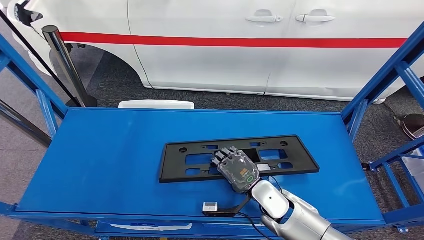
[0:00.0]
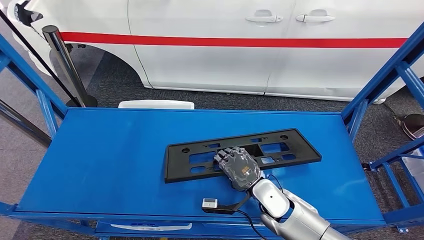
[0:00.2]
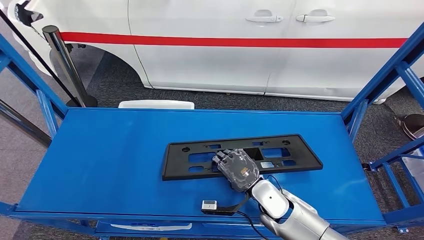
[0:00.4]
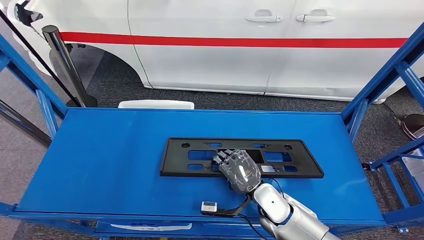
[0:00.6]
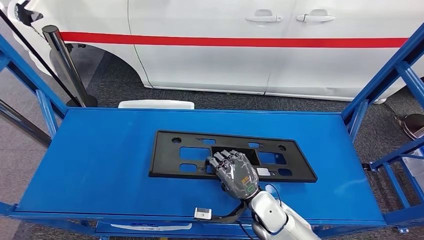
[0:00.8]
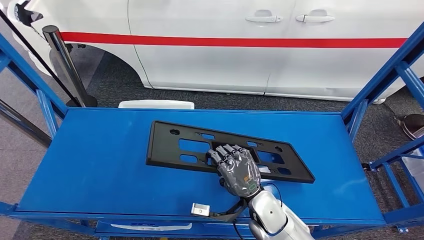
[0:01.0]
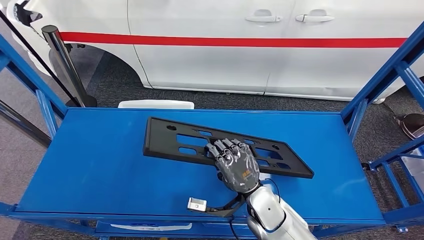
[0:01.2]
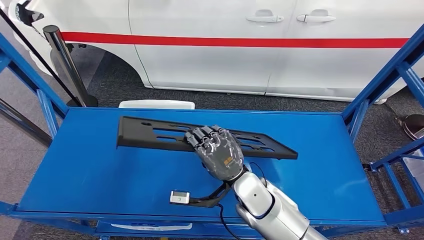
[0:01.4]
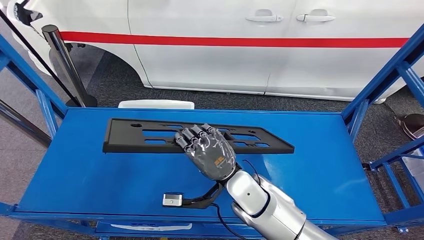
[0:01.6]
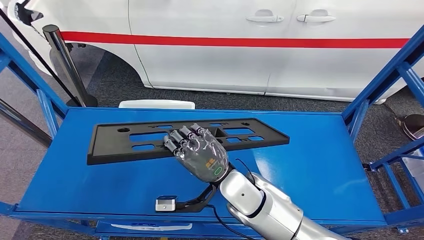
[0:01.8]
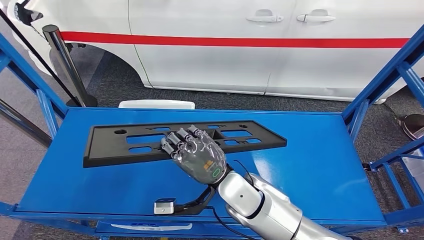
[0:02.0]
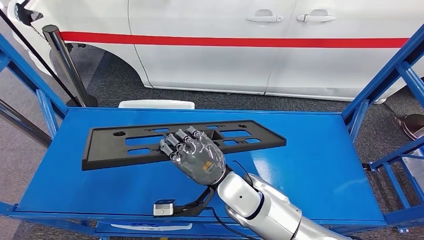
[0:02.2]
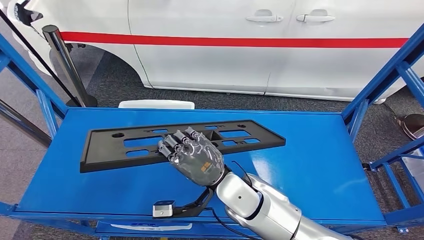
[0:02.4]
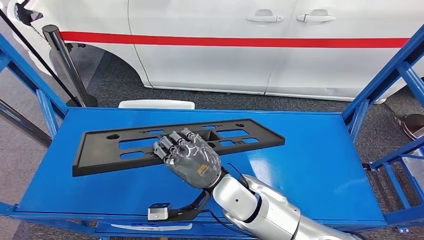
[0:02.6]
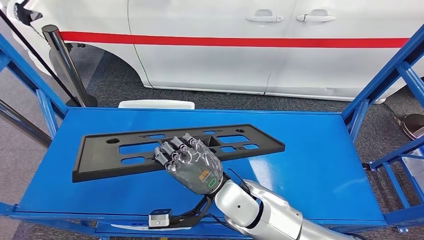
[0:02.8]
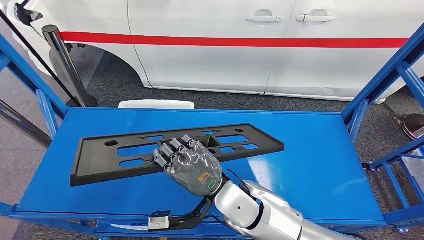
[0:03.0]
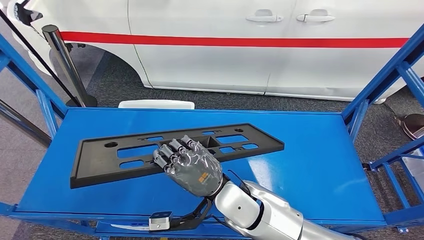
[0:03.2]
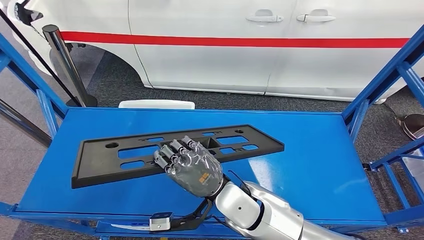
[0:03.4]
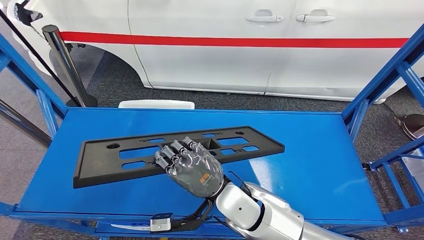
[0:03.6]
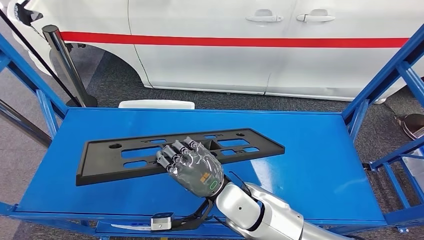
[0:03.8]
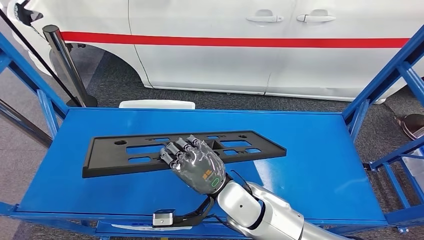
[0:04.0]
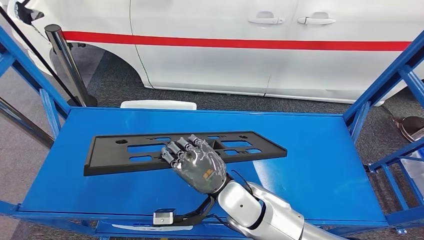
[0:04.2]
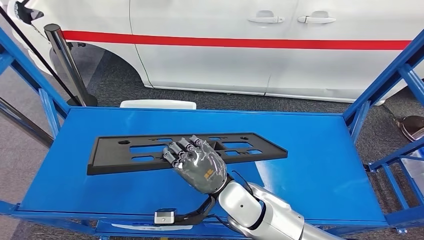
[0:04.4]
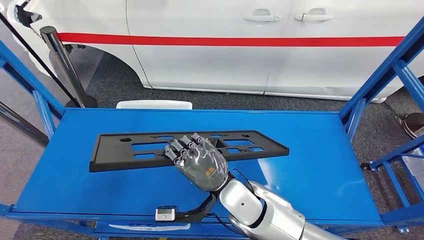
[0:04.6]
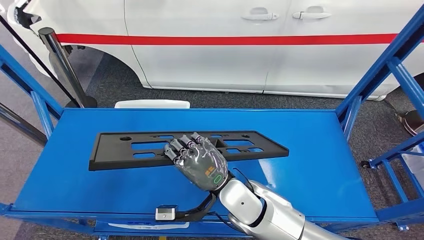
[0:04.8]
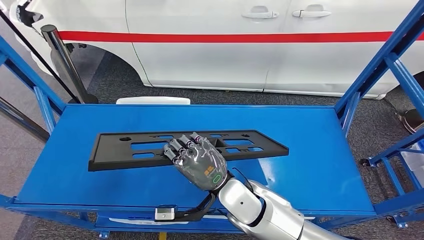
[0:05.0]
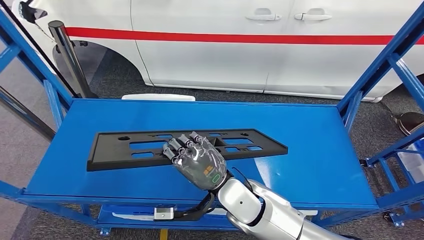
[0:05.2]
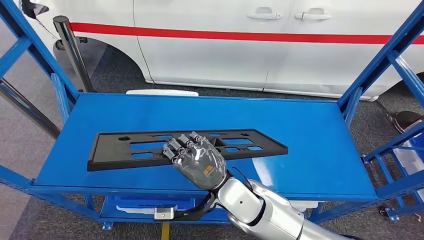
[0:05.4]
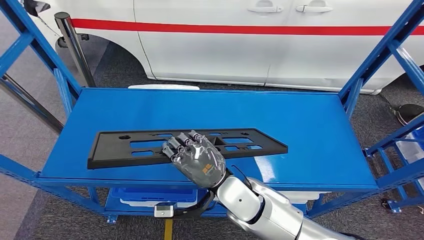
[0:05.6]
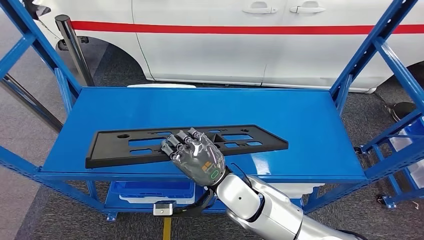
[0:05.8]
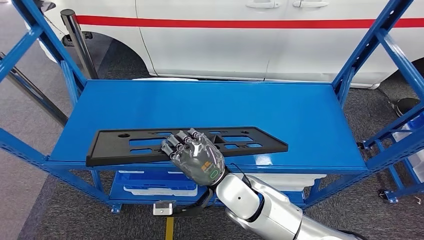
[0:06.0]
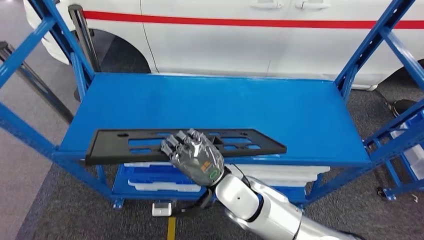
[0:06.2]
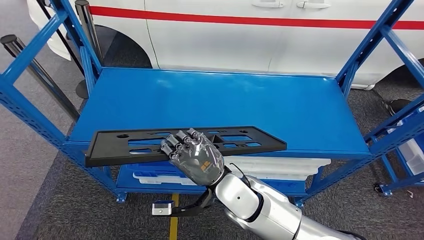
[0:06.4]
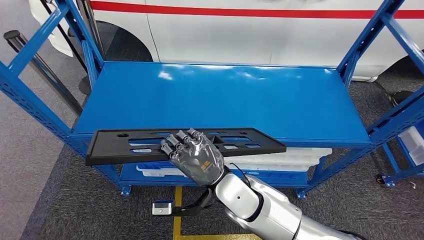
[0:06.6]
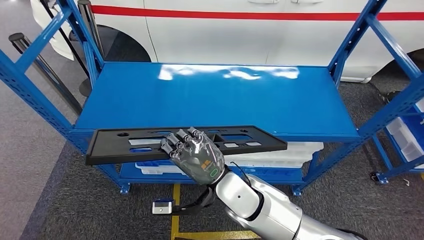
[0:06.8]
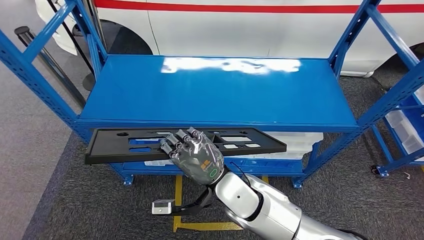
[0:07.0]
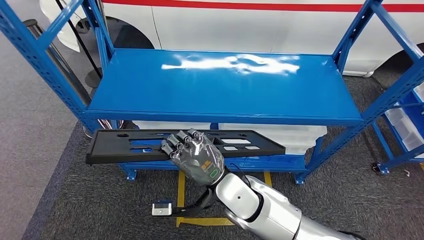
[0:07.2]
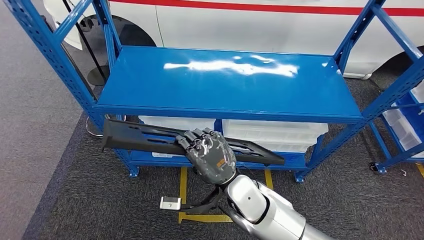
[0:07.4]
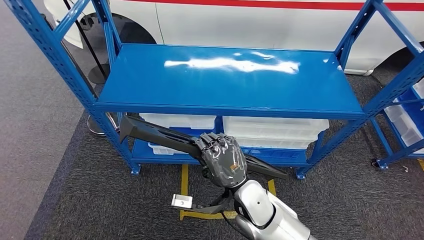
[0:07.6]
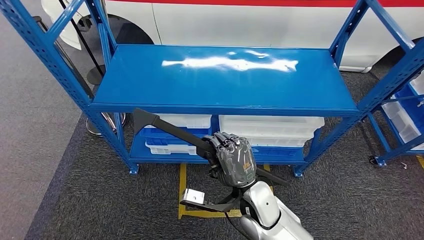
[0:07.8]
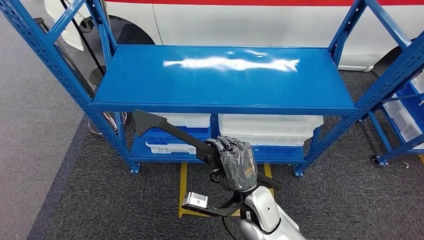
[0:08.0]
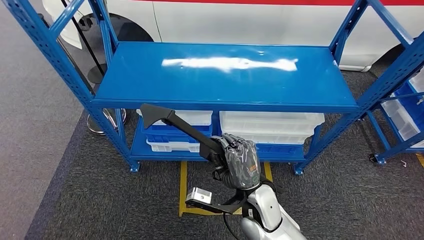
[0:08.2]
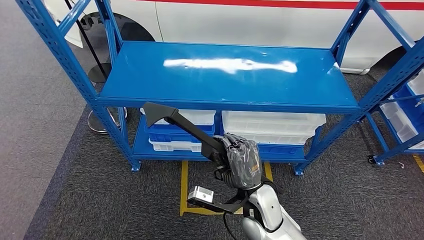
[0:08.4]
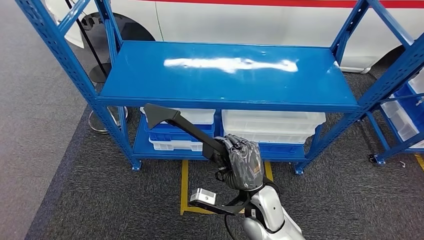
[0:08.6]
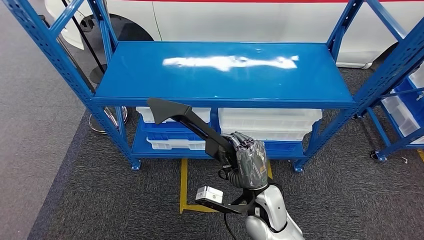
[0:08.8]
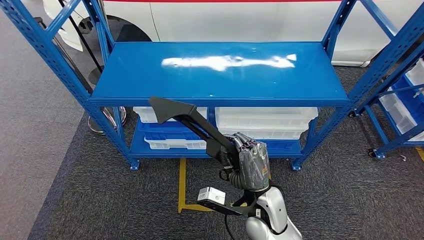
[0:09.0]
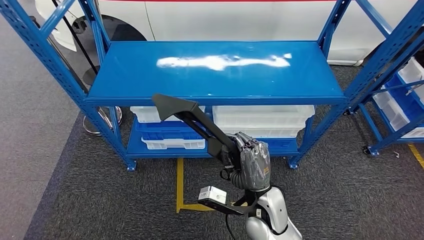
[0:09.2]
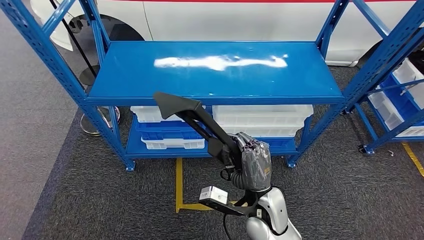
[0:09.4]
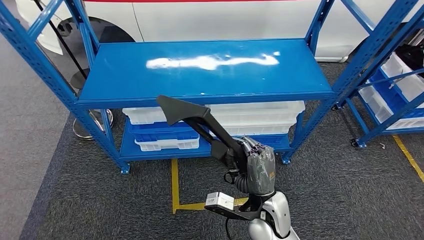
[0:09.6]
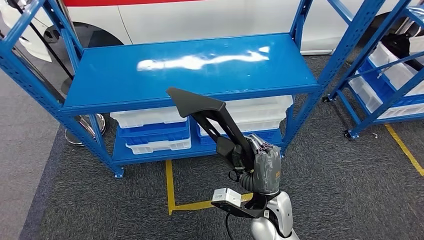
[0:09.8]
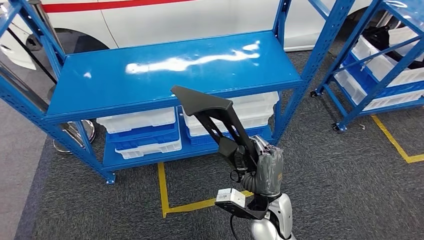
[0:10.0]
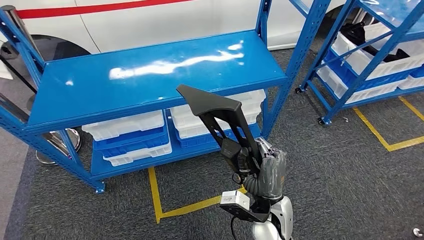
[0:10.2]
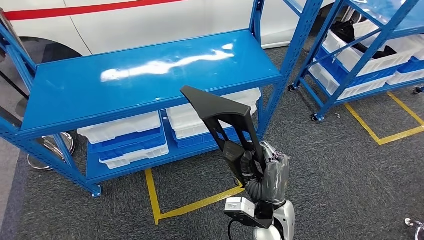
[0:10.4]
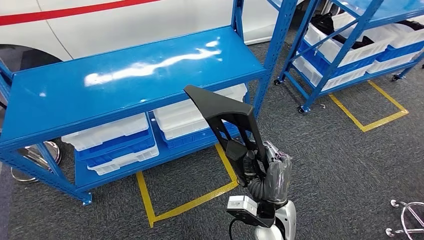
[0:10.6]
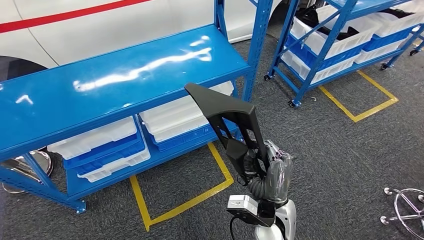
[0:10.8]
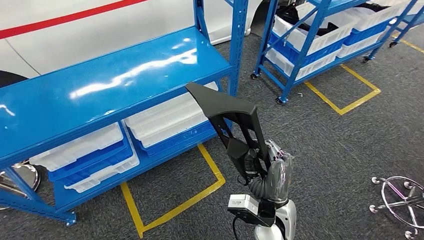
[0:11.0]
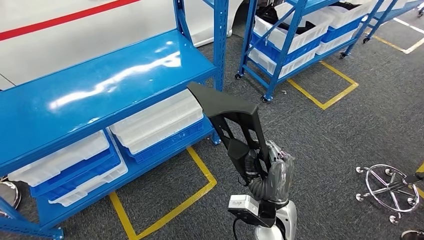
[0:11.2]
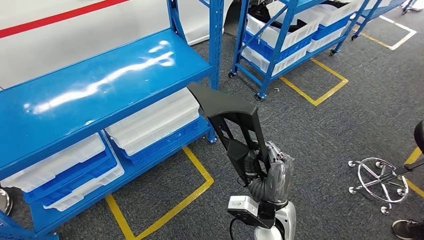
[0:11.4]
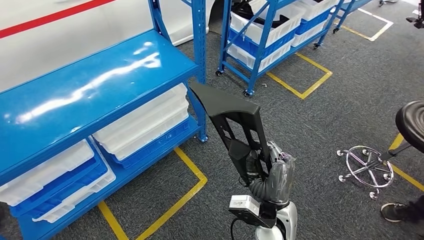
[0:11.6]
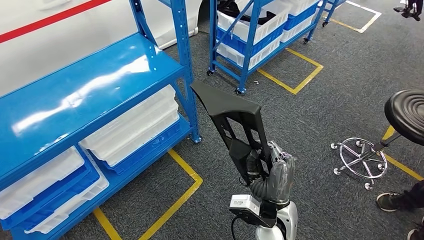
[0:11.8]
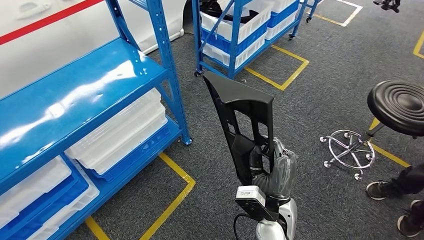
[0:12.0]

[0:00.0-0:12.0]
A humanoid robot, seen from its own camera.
Step, 0:00.0 to 0:02.2: Pick up the large material from the shelf.
0:00.0 to 0:01.6: The right hand moves upward and to the left, about 10 cm.
0:01.6 to 0:04.4: The hands stay close to where they were, moving slightly.

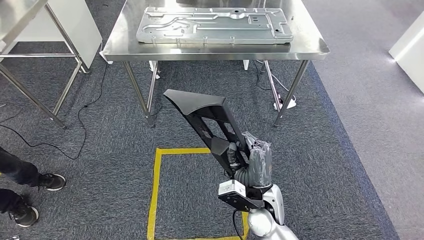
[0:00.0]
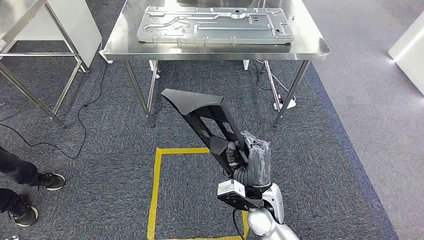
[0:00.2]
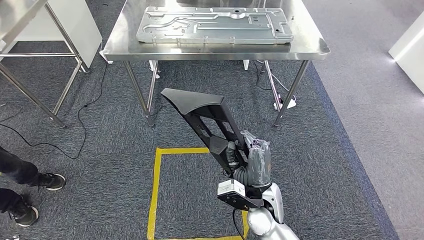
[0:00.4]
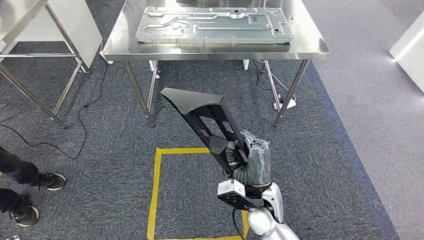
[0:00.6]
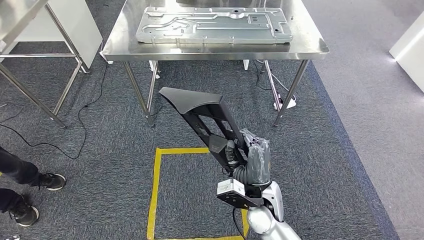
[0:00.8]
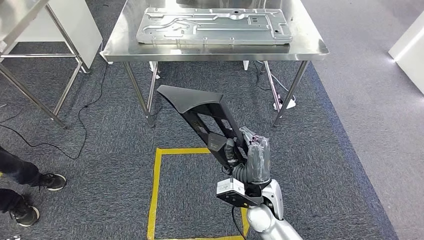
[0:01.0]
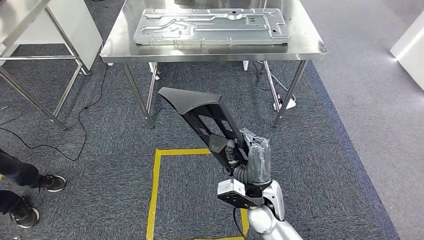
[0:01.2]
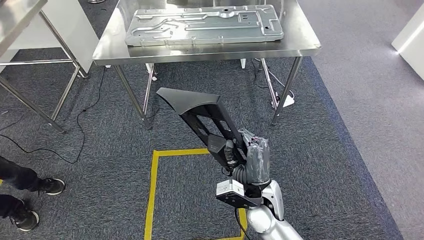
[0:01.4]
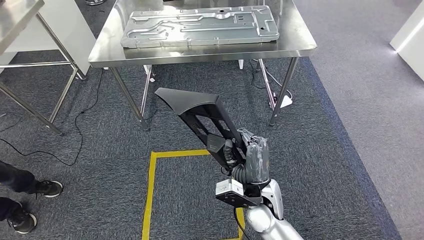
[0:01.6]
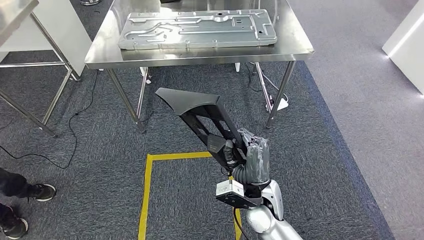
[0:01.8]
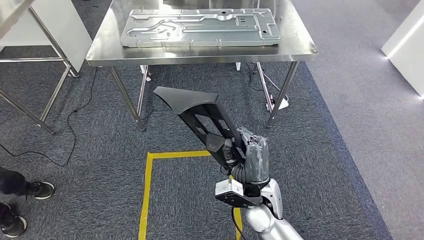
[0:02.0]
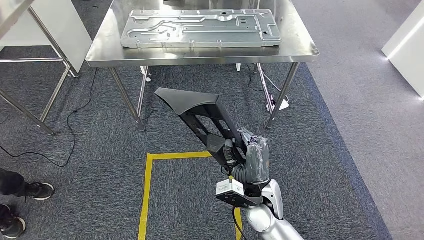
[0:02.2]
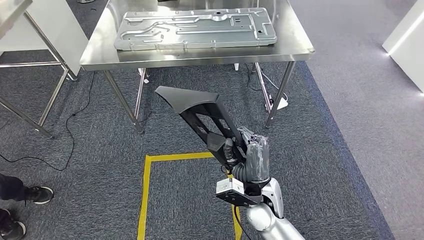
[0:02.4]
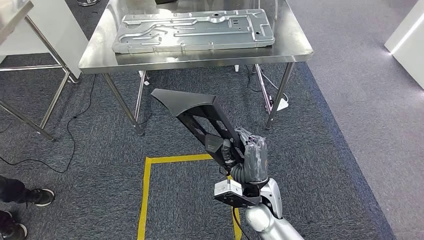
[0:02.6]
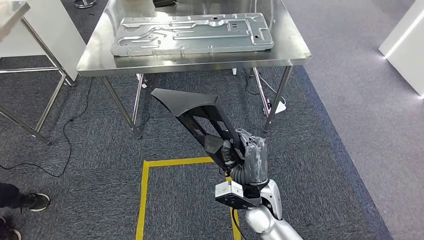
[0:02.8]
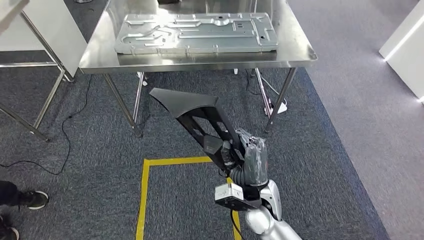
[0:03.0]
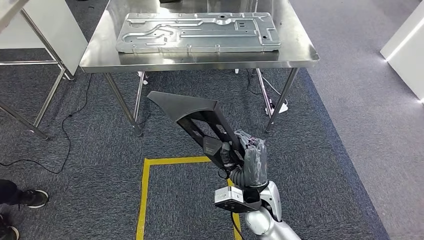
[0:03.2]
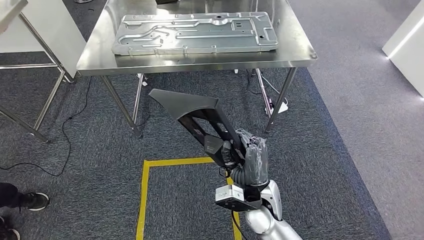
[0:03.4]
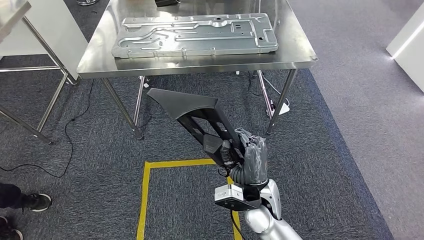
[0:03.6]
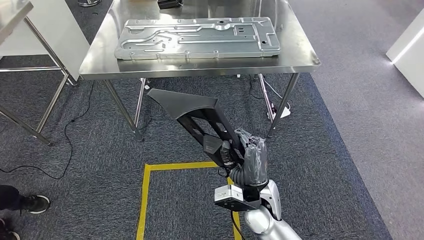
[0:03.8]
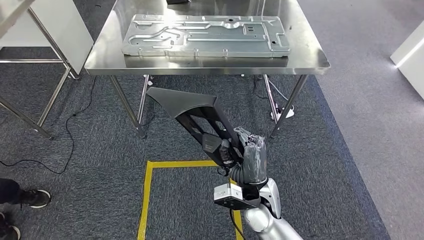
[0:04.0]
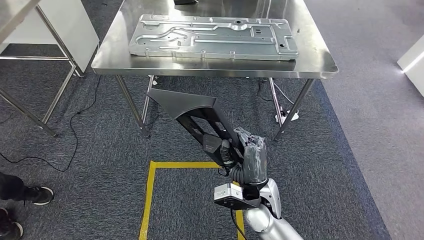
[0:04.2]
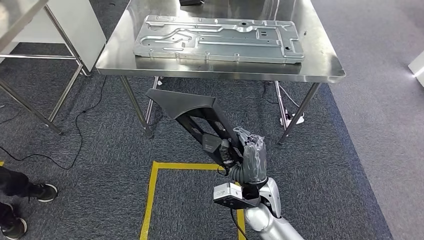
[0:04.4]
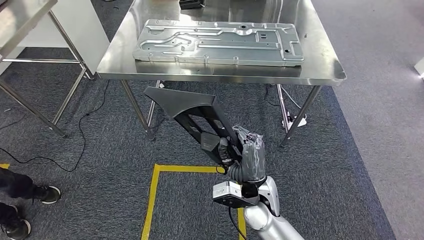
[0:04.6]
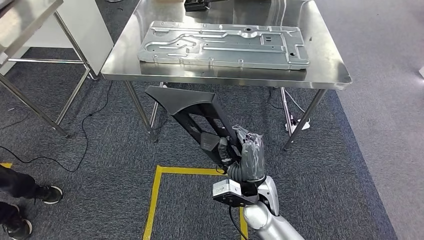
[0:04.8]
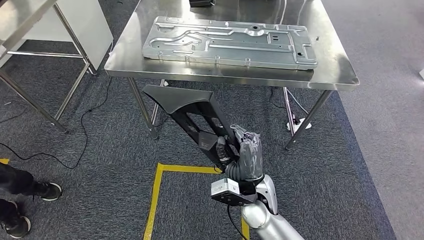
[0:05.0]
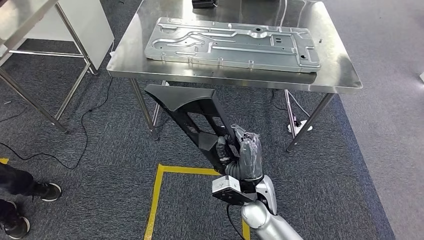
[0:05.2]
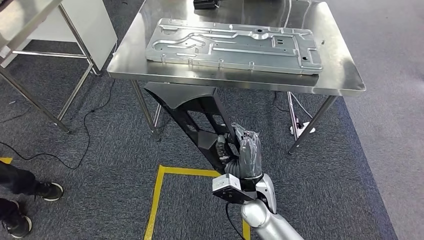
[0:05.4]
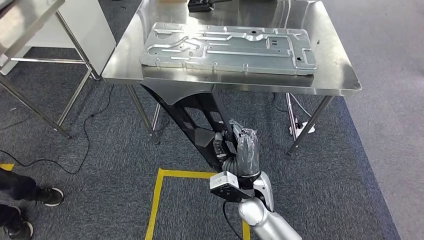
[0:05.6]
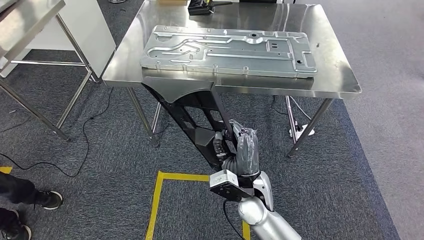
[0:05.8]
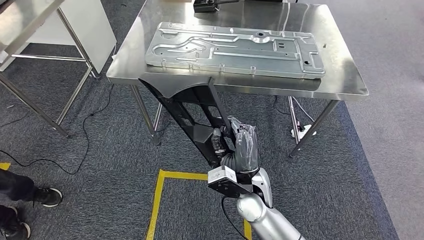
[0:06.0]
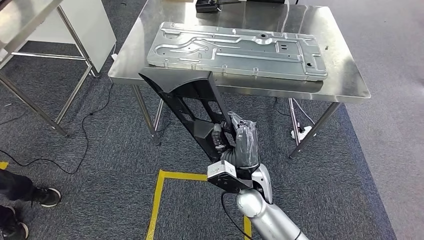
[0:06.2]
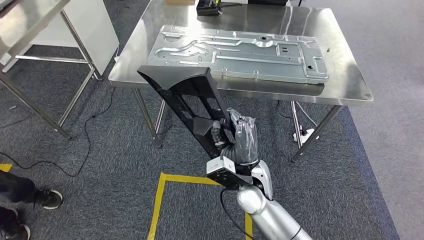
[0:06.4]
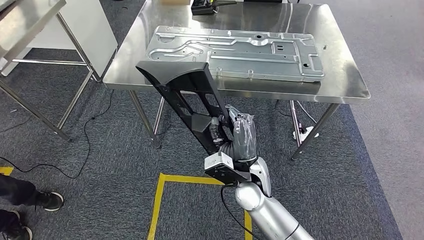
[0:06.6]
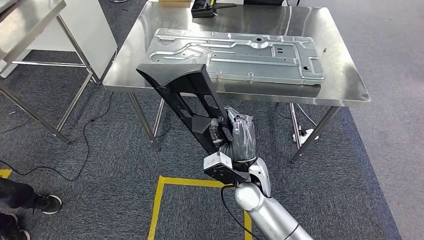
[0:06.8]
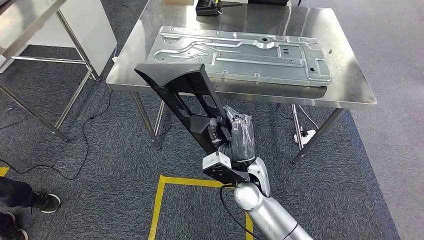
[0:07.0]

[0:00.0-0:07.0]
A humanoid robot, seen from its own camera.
0:00.0 to 0:01.4: Both hands stay put.
